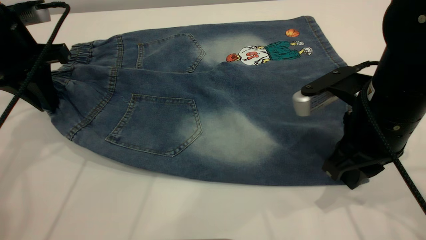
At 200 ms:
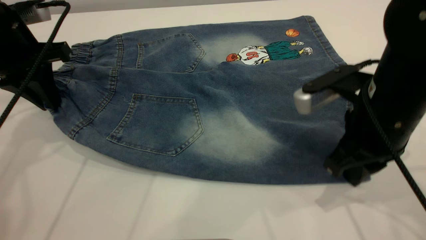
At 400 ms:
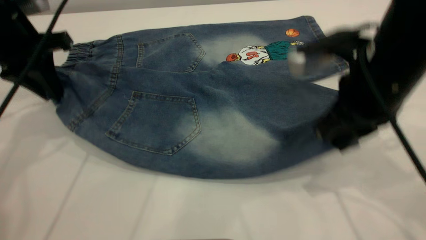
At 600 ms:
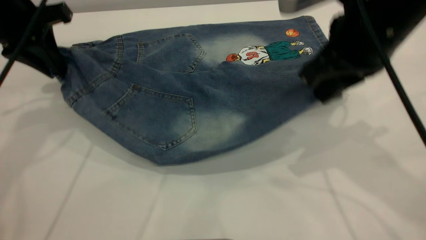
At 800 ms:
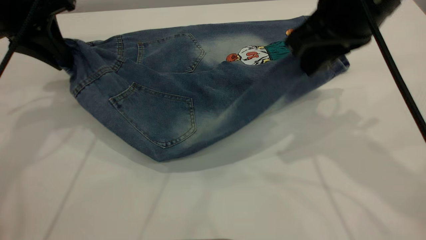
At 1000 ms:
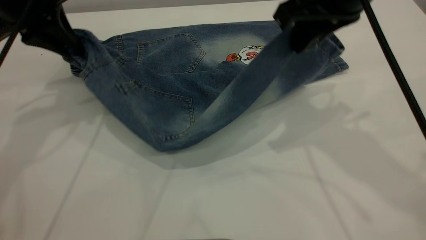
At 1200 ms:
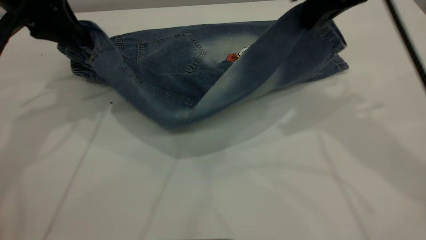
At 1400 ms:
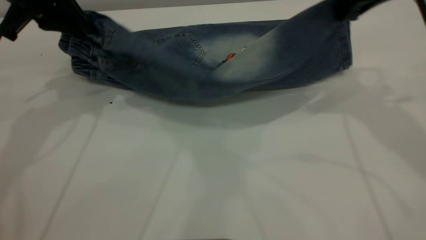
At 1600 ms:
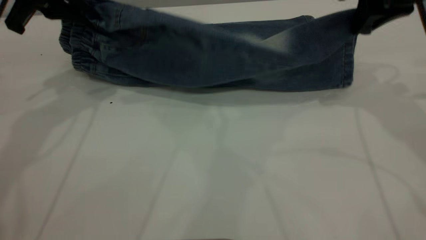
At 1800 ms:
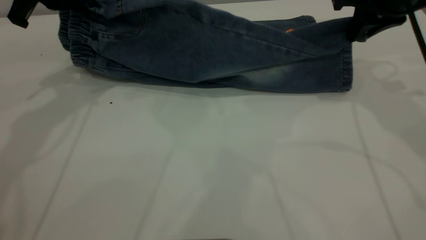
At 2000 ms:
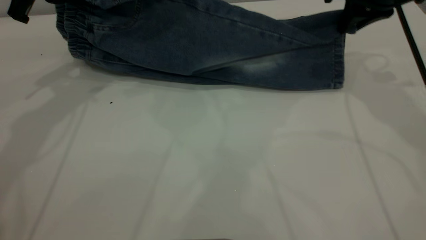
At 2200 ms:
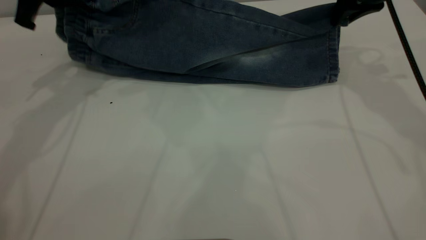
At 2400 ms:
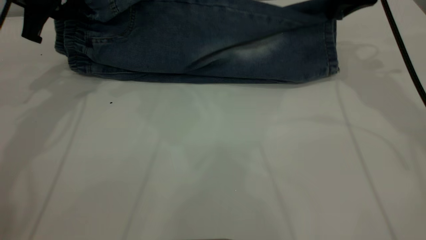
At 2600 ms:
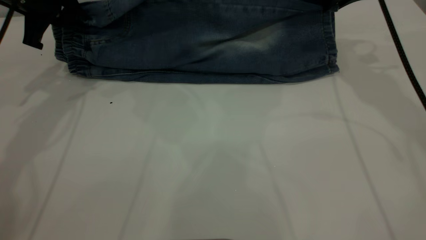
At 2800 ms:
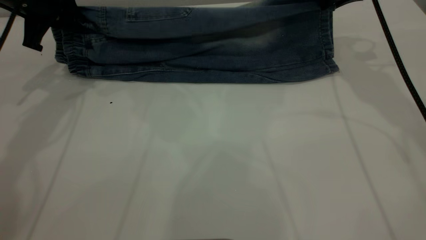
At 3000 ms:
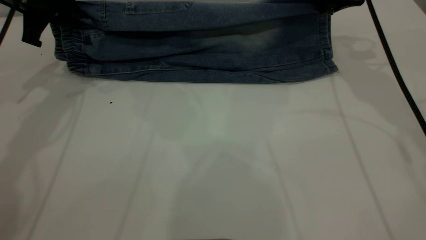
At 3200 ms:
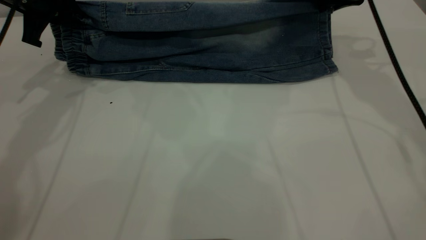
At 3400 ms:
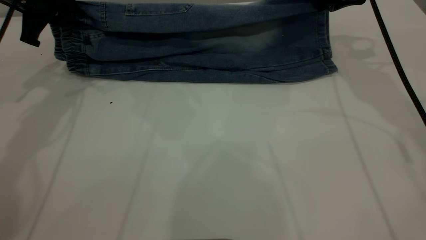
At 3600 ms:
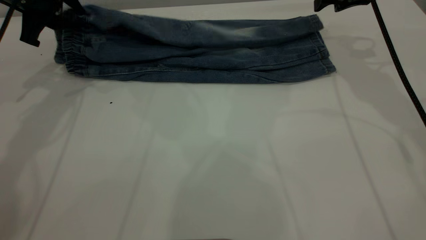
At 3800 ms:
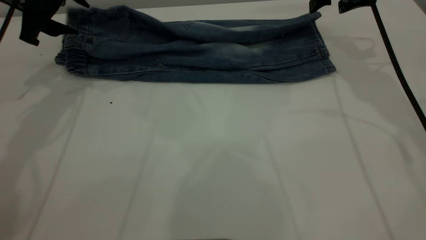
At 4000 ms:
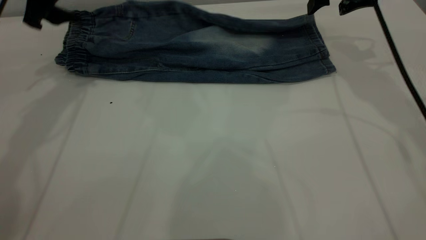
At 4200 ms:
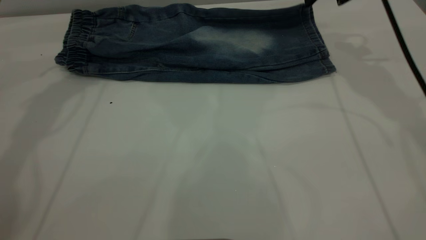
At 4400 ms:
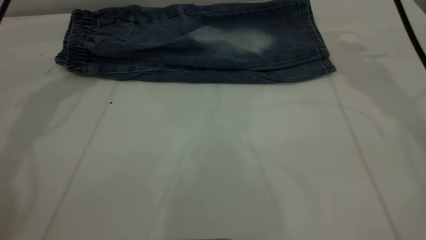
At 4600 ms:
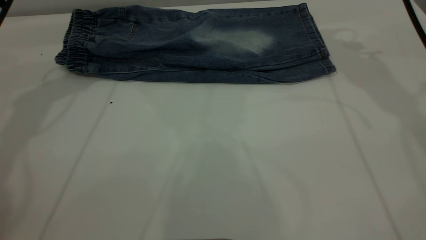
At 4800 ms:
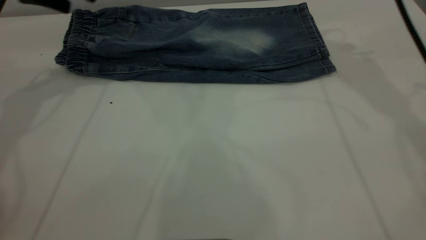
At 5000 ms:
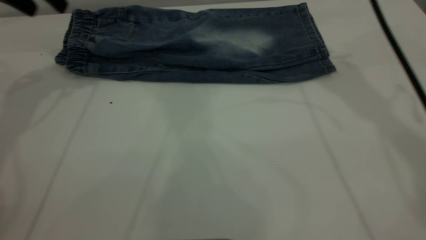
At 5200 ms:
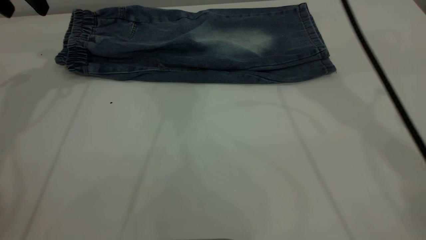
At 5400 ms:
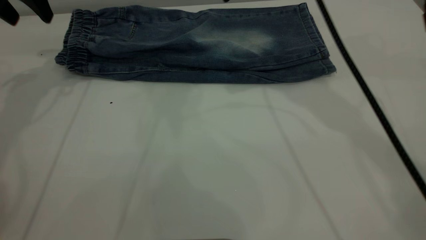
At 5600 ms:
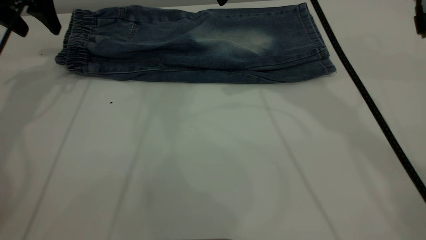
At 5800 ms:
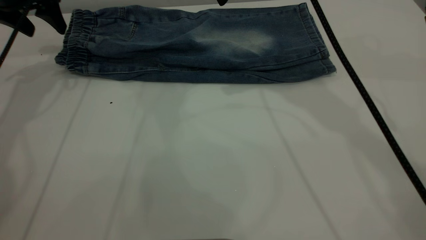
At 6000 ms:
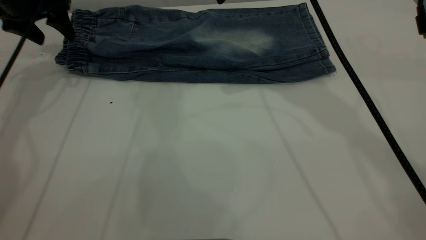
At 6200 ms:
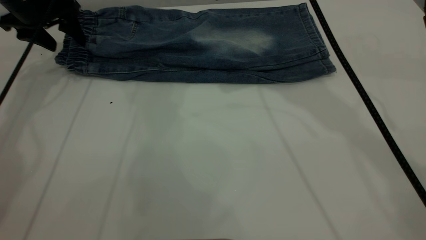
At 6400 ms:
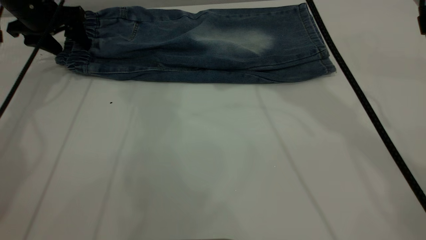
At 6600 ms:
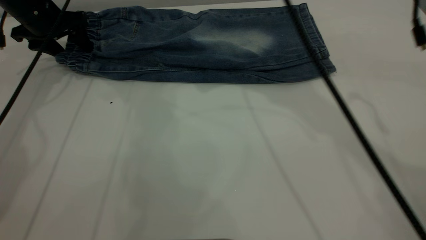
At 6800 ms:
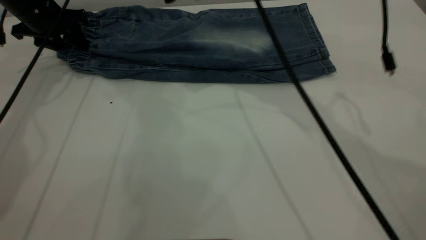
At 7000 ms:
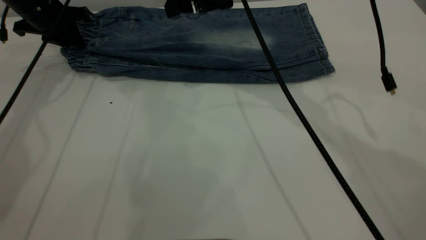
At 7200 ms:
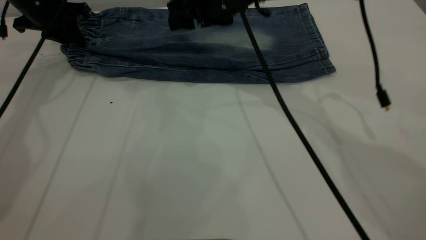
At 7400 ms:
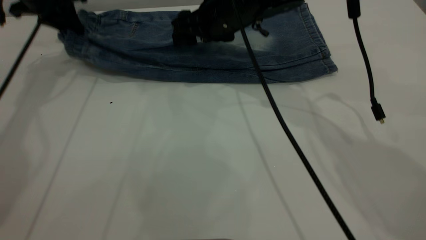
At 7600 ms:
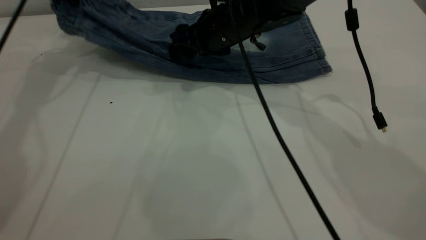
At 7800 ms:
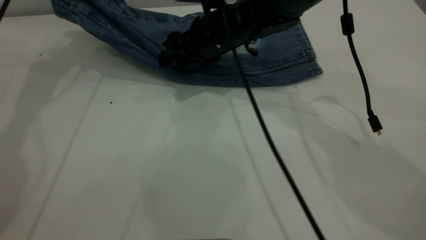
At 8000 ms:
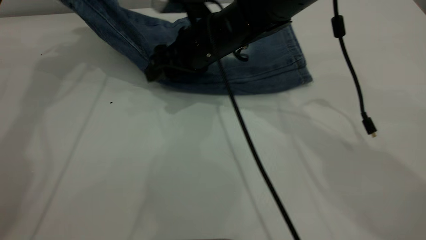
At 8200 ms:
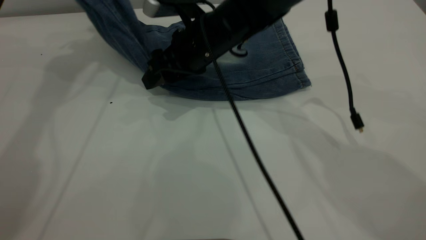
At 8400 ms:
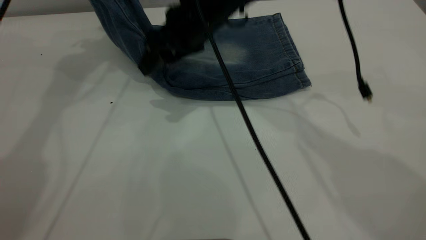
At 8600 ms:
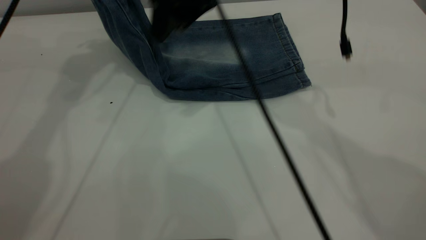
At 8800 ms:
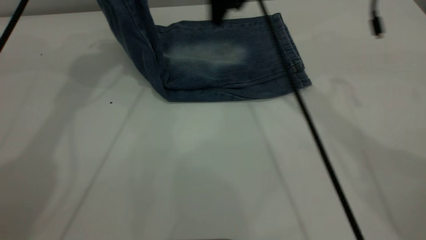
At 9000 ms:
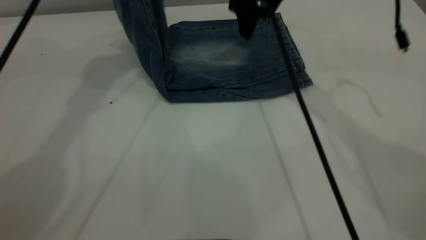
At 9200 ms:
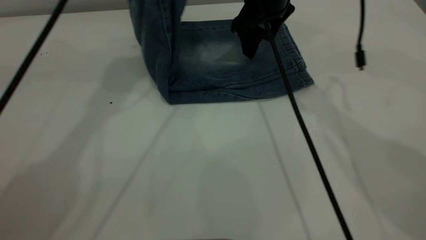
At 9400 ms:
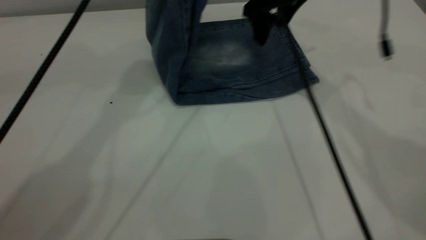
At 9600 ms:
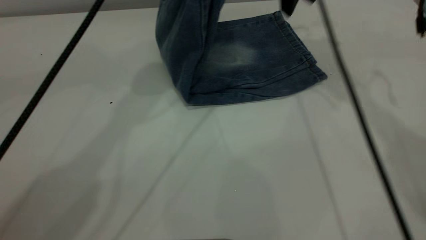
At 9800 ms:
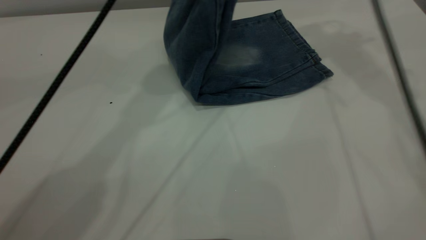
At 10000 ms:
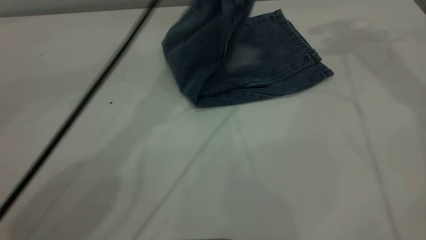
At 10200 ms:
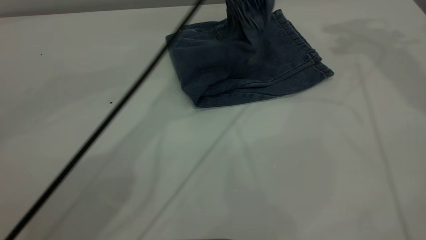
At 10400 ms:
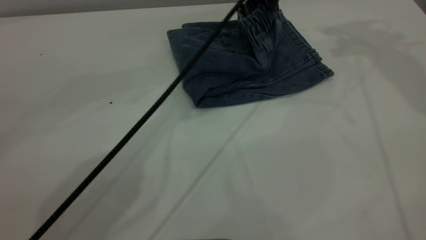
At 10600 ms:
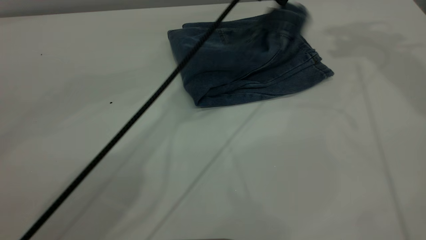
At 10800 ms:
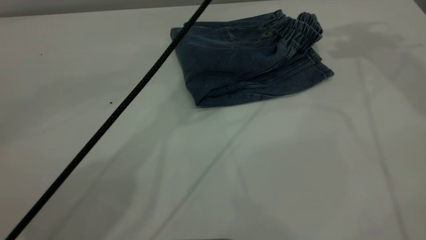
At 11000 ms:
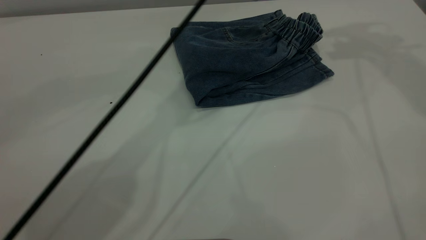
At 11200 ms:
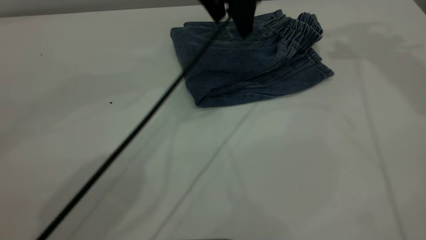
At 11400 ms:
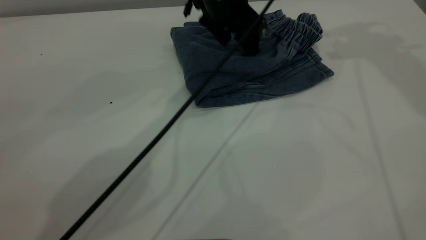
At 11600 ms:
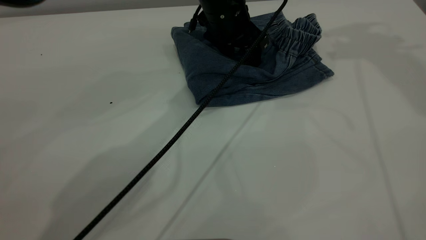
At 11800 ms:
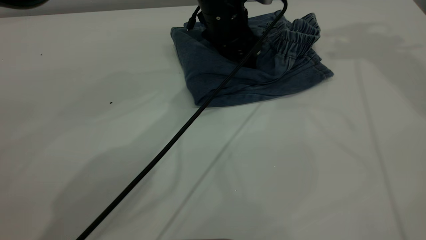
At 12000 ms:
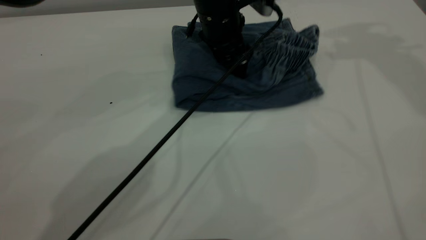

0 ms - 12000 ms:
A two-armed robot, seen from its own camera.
Step, 0 ms - 4600 ms: Fold the bottom of the pants upward.
Step, 4800 ms - 10800 ms: Fold the pants from left to right.
0 ms - 1600 ms: The left gripper heads upward, covering some 5 cm, while the right gripper goes approximately 15 cm forward, upward and to the right.
1600 ms - 3000 ms: The left gripper changes place by some 5 cm, while the right gripper shifts some 10 cm forward.
3000 ms - 4400 ms: The grippers both shift upward by approximately 5 cm. The left gripper opens up. The right gripper opens.
4400 ms - 6000 ms: The left gripper heads to the left and downward, covering about 10 cm. Meanwhile the right gripper is displaced to the left by approximately 15 cm.
6000 ms - 7600 ms: The right gripper is displaced downward by approximately 15 cm; the left gripper is displaced upward by some 5 cm, and closes.
7600 ms - 9000 ms: The left gripper heads to the right and upward, covering approximately 15 cm, while the right gripper moves upward and to the right, roughly 10 cm.
9000 ms - 10400 ms: The right gripper shifts approximately 25 cm upward and to the right. Meanwhile the left gripper moves to the right and downward, approximately 20 cm, and opens its fingers.
10400 ms - 12000 ms: The left gripper shifts about 10 cm downward, and opens up.

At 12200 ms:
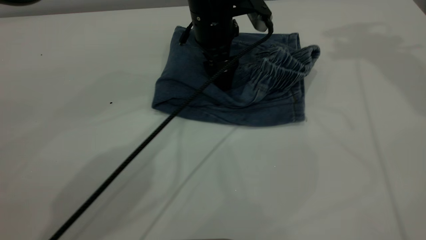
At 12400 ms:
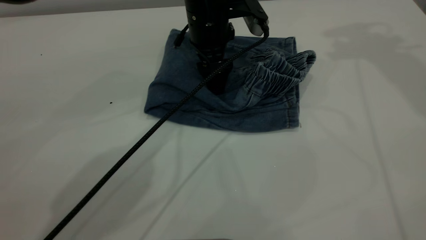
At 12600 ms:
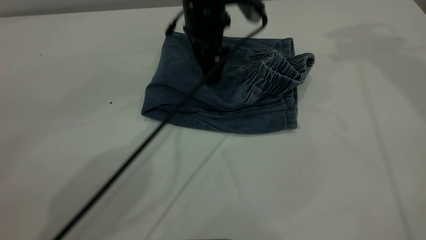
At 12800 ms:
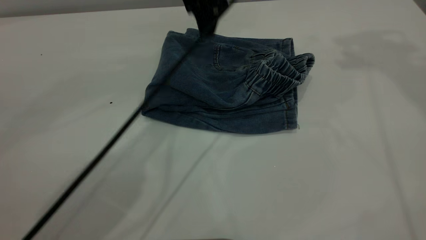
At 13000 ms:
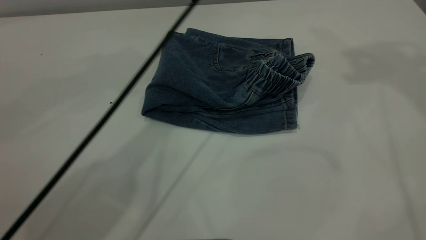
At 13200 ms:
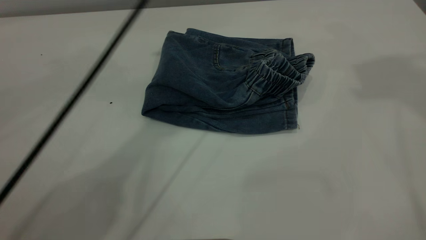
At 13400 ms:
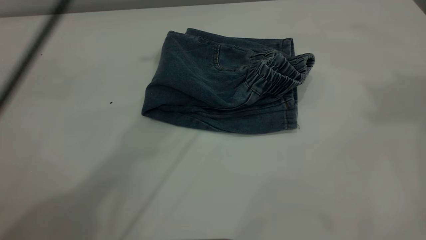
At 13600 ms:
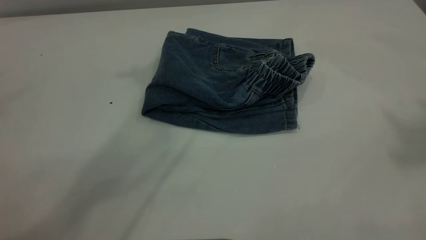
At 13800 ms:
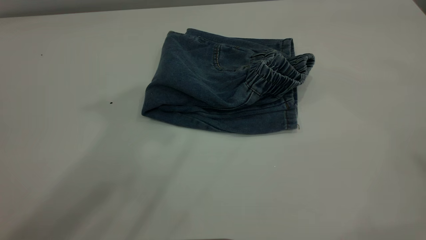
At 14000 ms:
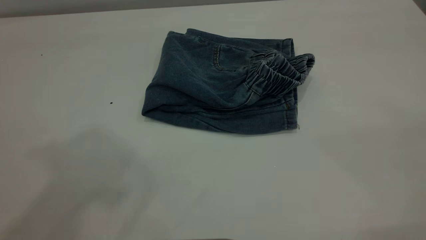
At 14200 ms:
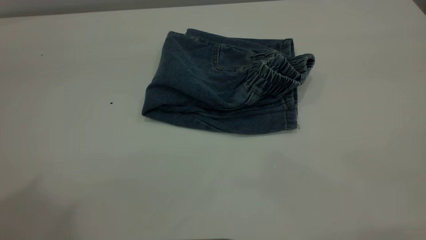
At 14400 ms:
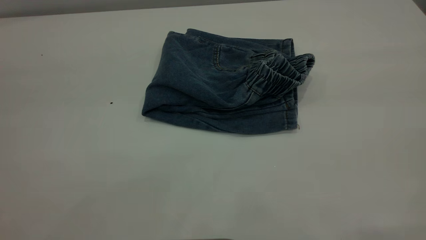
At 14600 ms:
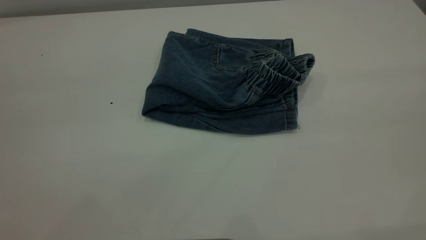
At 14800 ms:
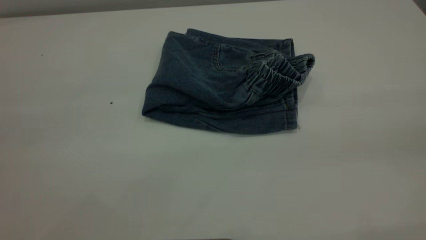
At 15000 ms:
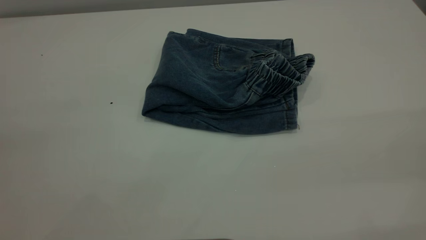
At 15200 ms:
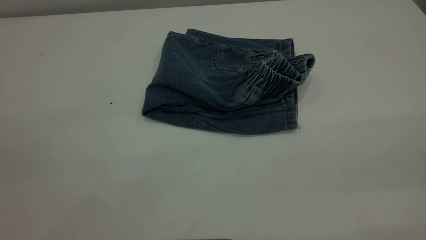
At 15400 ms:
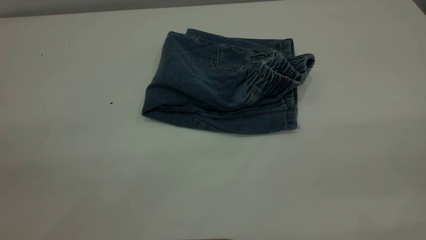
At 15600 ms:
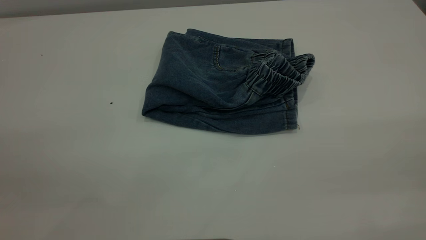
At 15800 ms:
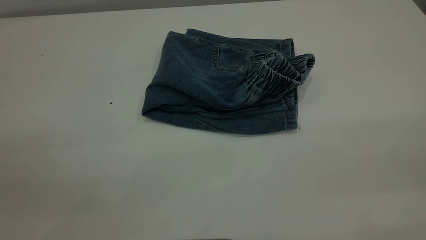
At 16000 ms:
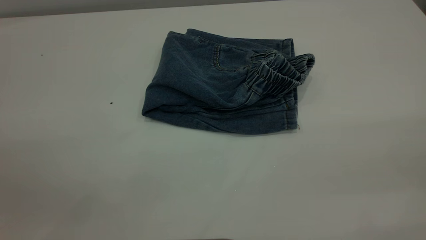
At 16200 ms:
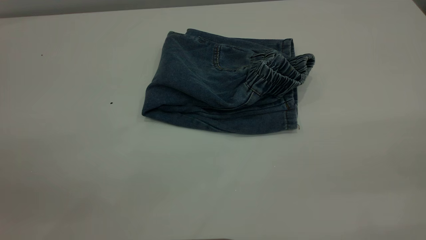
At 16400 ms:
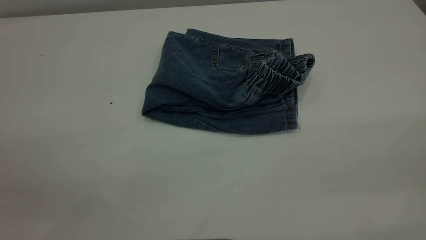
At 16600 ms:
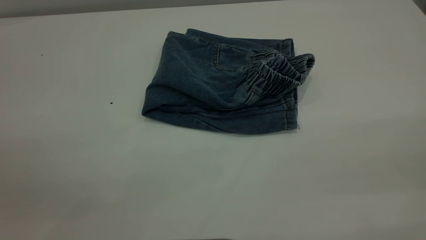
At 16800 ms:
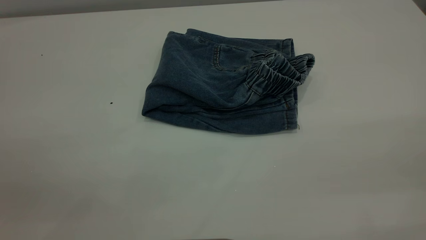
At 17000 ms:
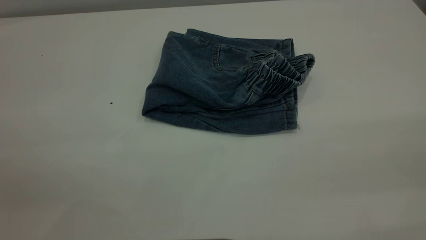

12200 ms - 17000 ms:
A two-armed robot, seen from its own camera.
12200 ms - 13800 ms: The right gripper goes about 40 cm backward and upward. The left gripper is displaced upward and backward by approximately 40 cm.
